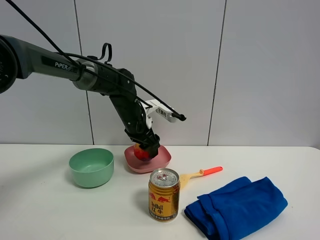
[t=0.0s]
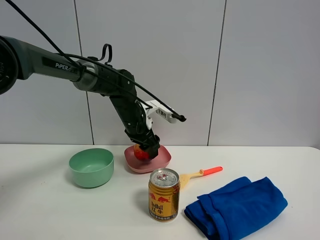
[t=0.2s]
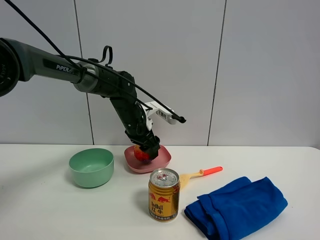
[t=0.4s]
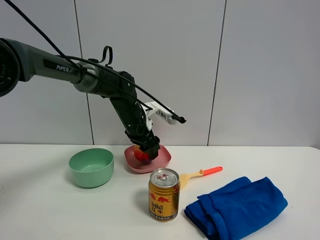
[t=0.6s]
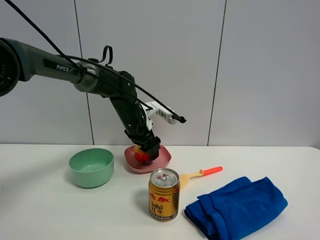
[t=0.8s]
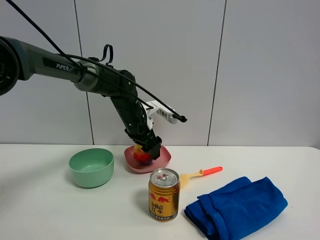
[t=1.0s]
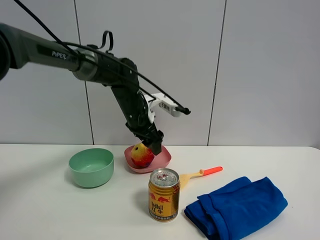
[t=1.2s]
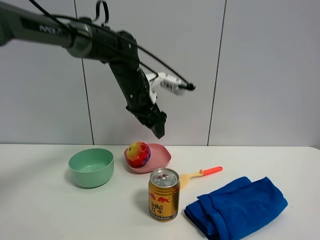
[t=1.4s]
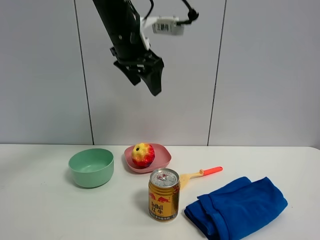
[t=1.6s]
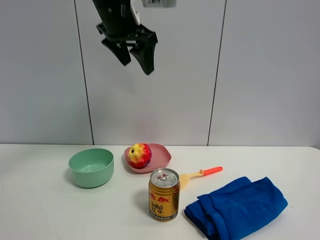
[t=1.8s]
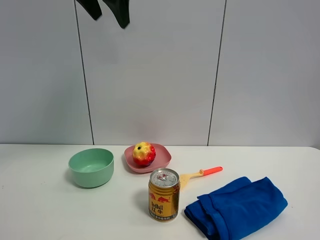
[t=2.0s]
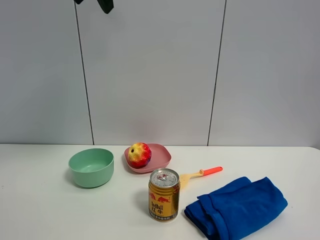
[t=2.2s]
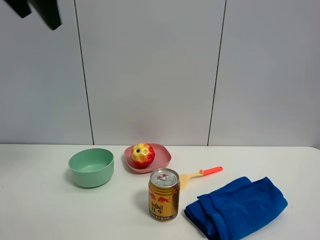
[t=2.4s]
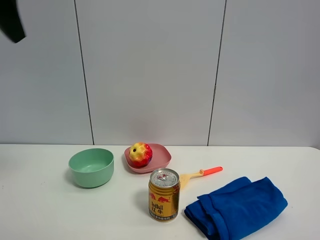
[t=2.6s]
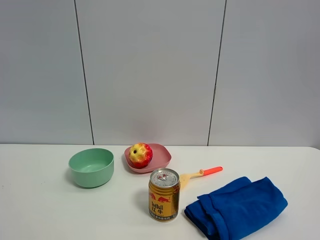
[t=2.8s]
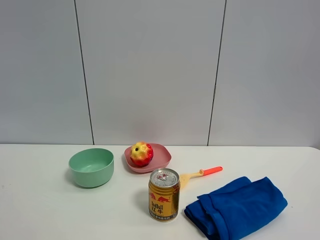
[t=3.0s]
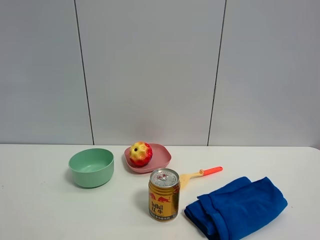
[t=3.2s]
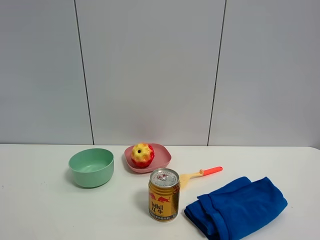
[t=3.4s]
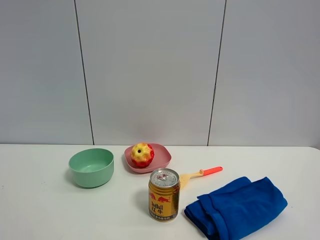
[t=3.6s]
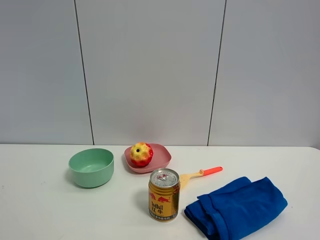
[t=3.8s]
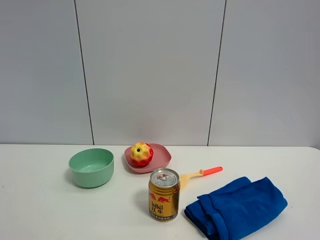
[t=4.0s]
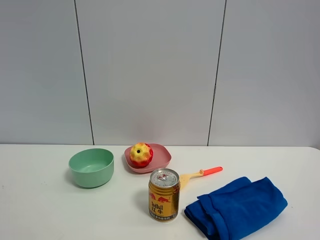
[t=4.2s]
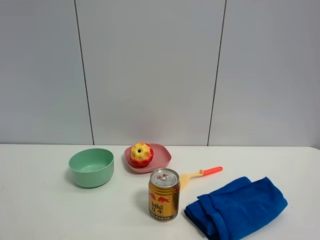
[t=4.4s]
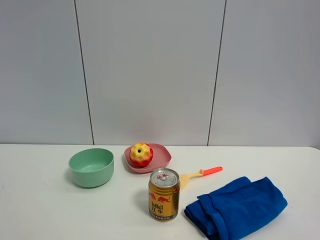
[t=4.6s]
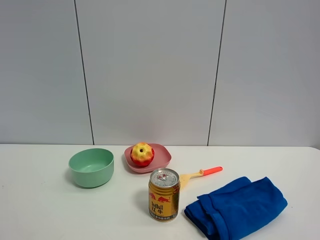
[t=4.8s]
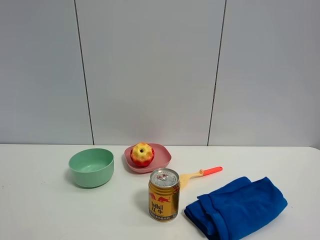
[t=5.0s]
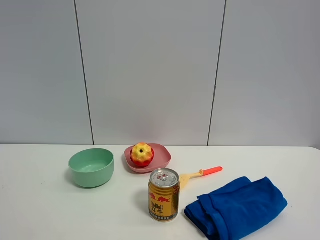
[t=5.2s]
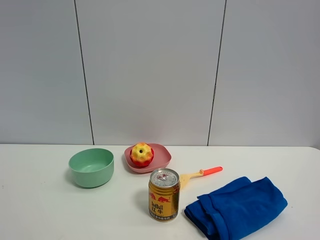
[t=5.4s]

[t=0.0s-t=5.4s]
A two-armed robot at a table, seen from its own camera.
Task of the whole recording: the gripper move the object.
t=0.0s to t=1.4s: The left gripper moves upward, about 10 cm, and opens up.
t=1.4s to t=2.8s: The left gripper heads backward, to the left and upward, covering about 40 cm, and closes, then opens again.
